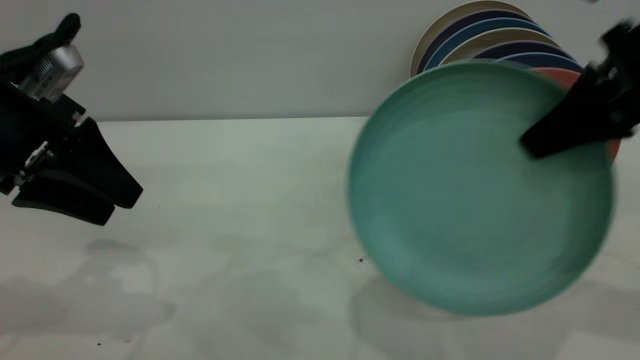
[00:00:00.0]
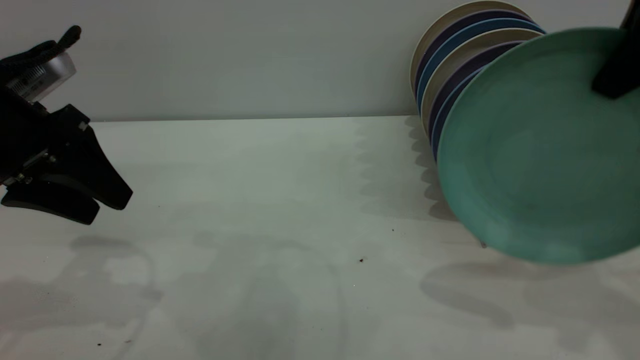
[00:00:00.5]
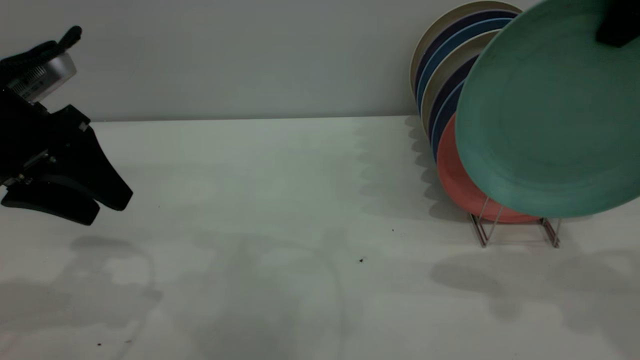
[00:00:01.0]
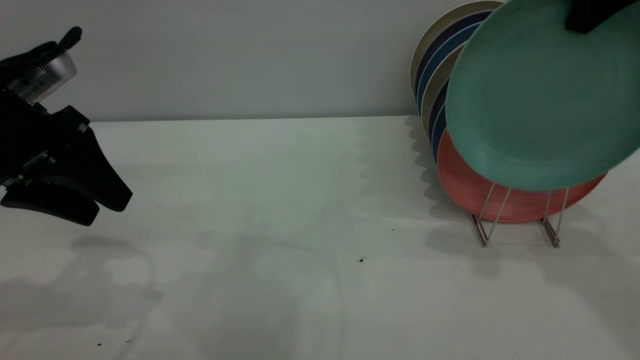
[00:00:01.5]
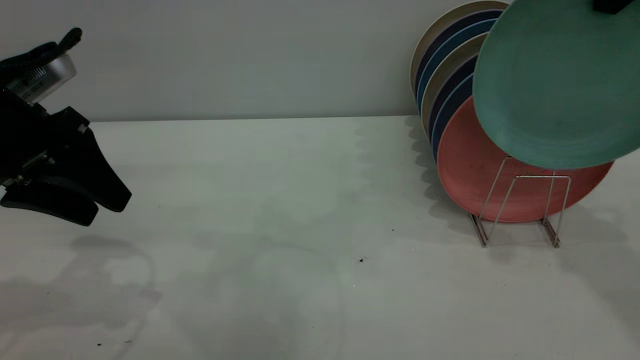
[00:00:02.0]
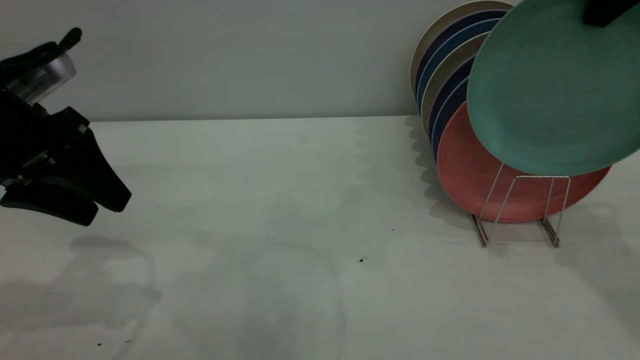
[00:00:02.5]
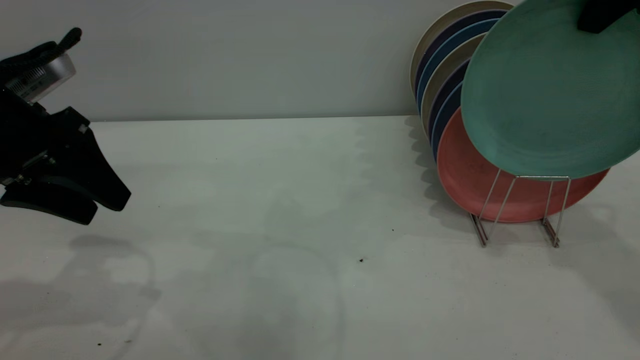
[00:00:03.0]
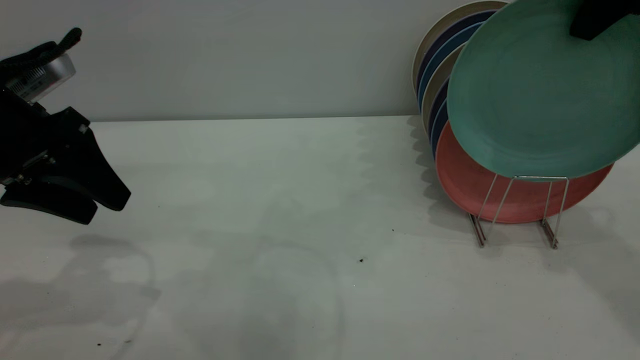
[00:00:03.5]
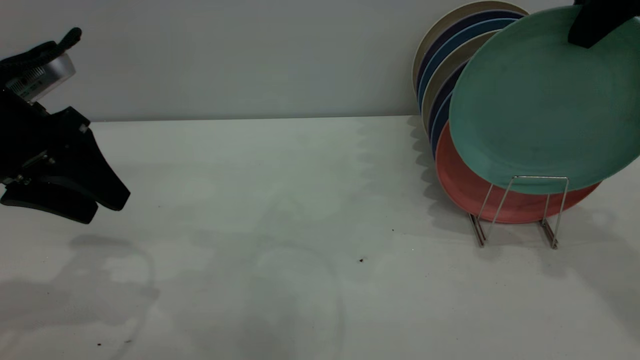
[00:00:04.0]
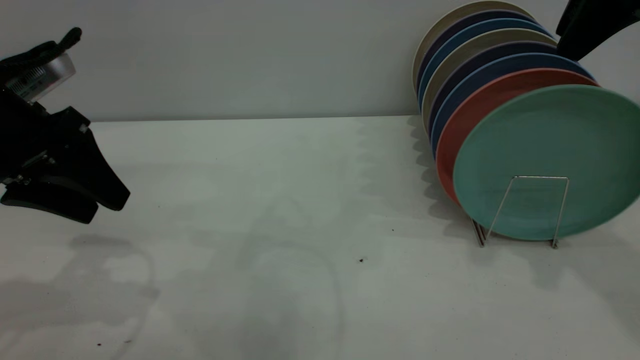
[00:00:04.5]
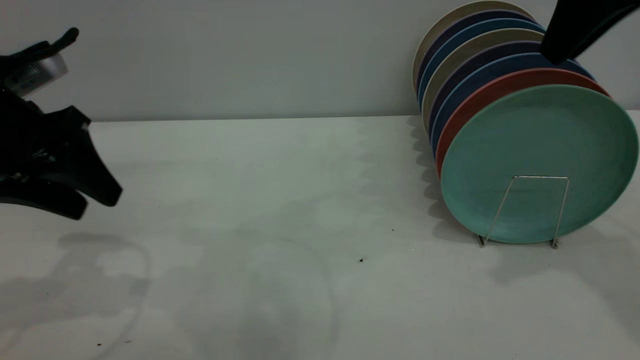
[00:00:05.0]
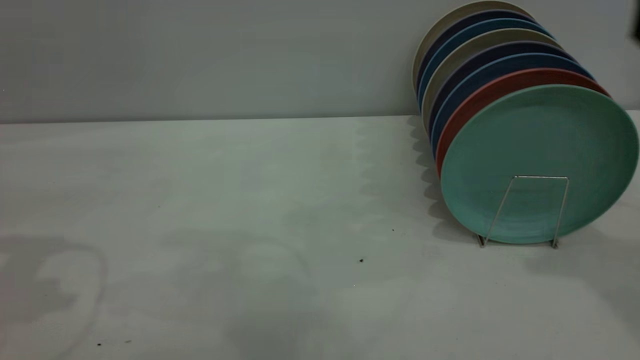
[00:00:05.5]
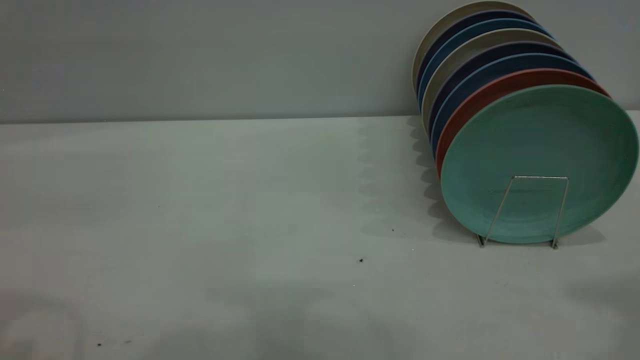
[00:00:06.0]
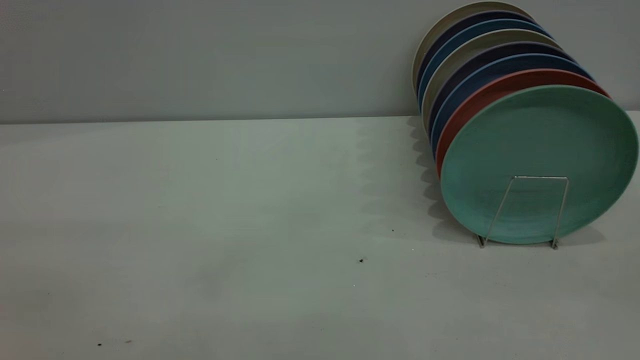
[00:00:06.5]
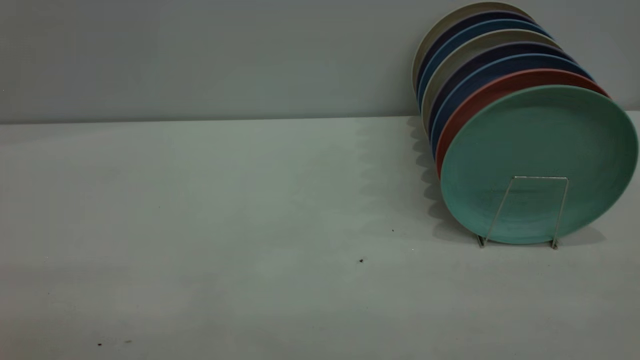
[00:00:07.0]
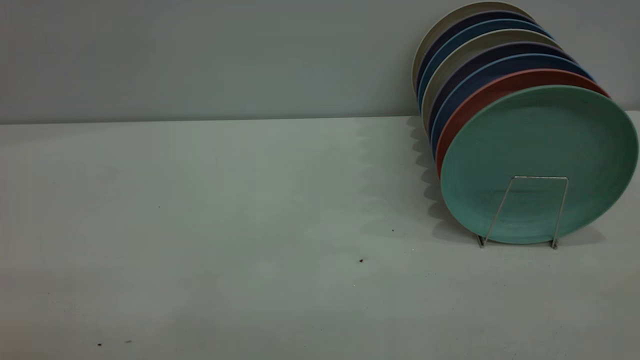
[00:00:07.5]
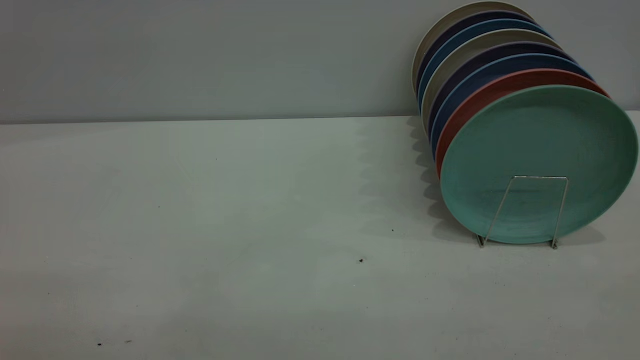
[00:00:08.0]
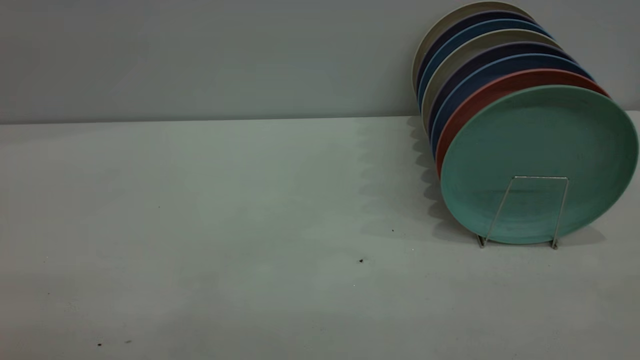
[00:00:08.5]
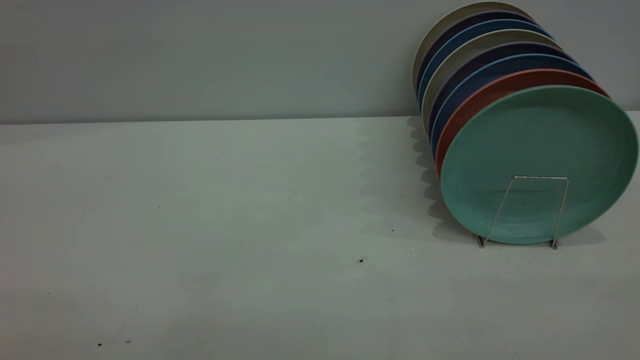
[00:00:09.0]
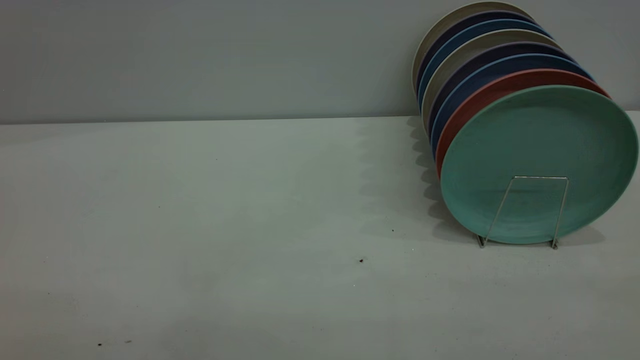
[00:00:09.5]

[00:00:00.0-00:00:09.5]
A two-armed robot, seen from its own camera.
Task of the whole recording: the left gripper grasp the green plate, the left gripper pass the green plate to the right gripper, and the right gripper place the green plate on the plate rack.
Step, 00:00:00.0 to 00:00:05.0: Place the plate on the shelf.
00:00:00.0 to 00:00:02.0: The right gripper heads upward and forward, covering some 10 cm.
00:00:02.0 to 00:00:04.0: The right gripper opens up.
00:00:04.0 to 00:00:05.5: The left gripper goes about 10 cm upward; the right gripper ends up about 5 cm from where it was.
